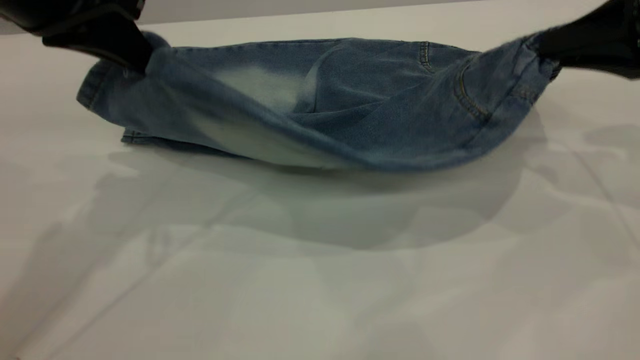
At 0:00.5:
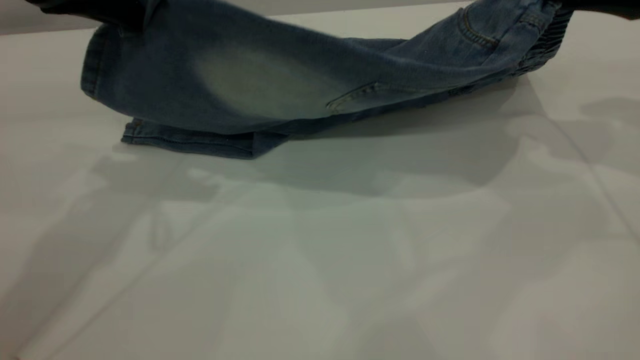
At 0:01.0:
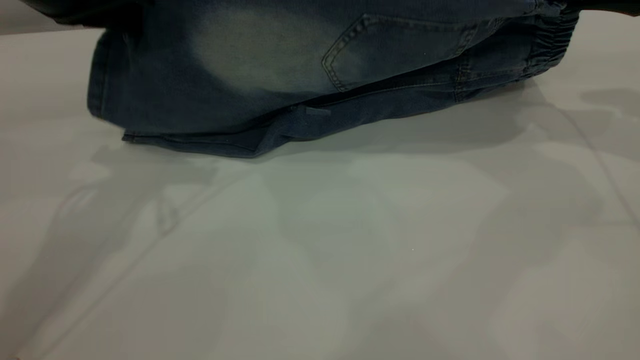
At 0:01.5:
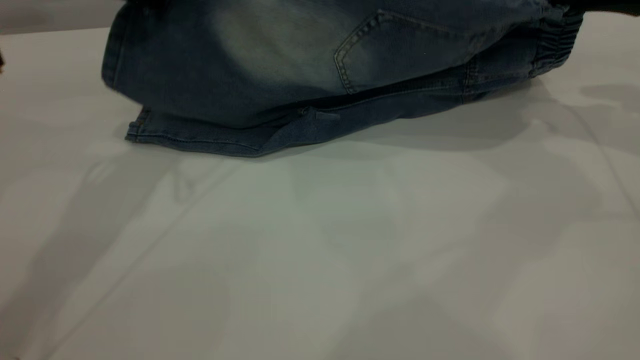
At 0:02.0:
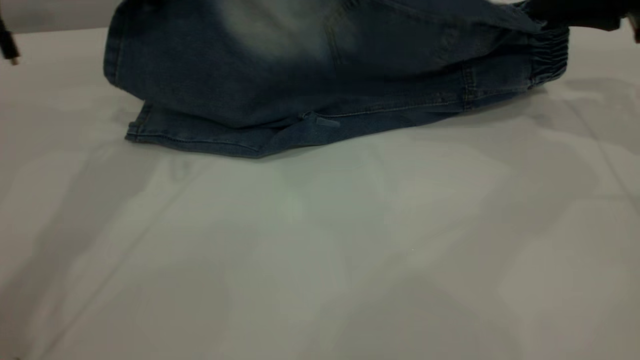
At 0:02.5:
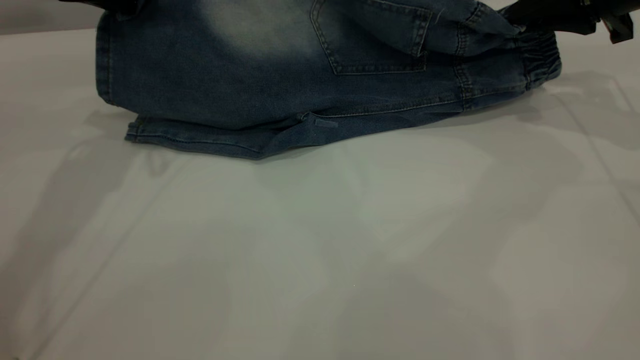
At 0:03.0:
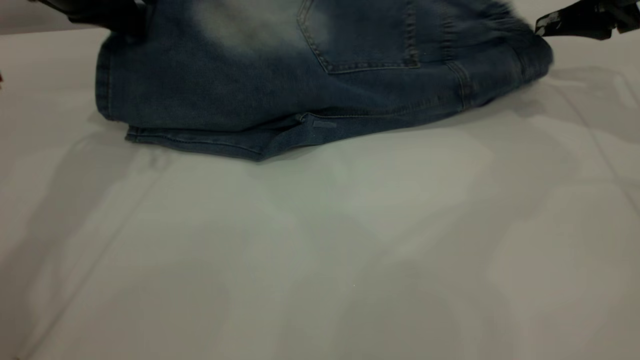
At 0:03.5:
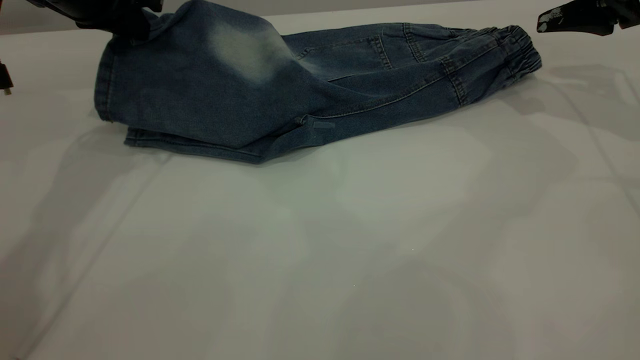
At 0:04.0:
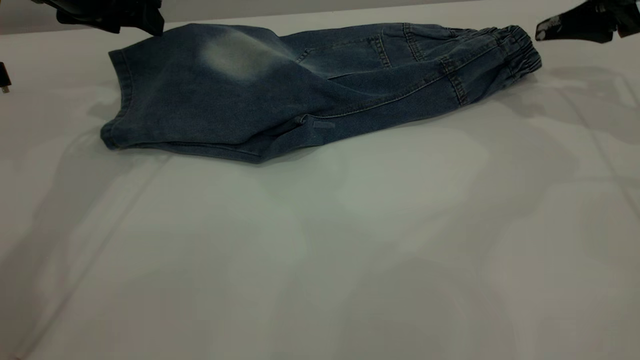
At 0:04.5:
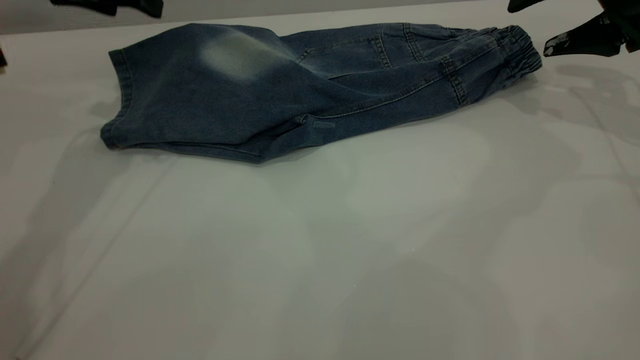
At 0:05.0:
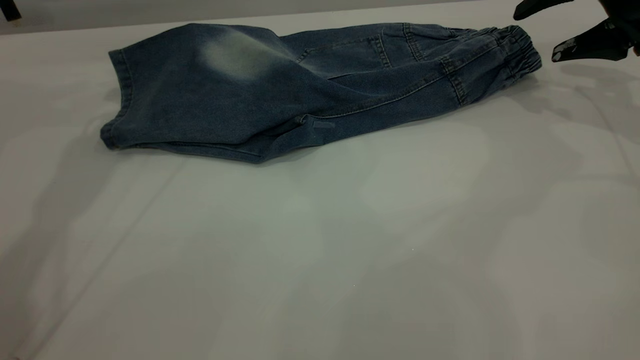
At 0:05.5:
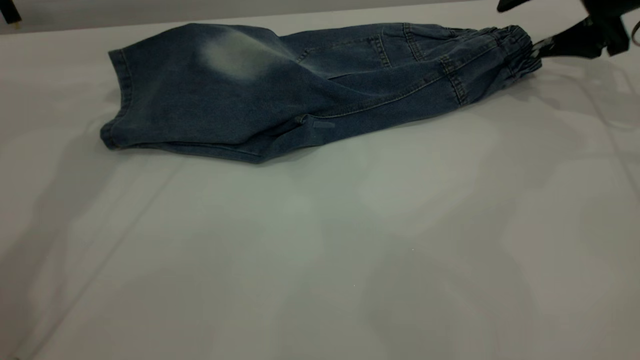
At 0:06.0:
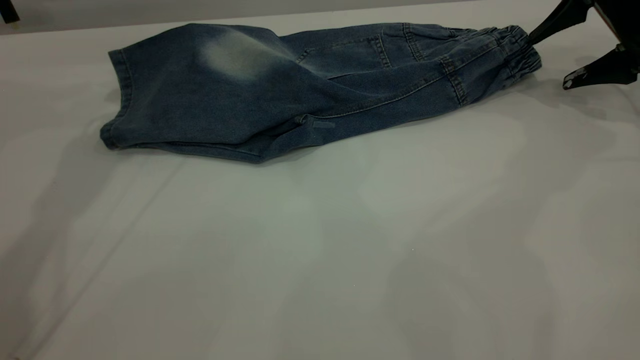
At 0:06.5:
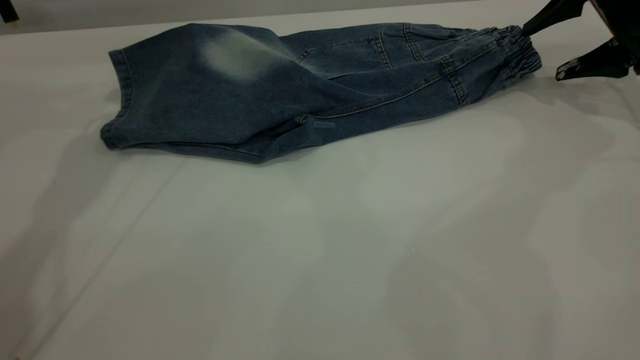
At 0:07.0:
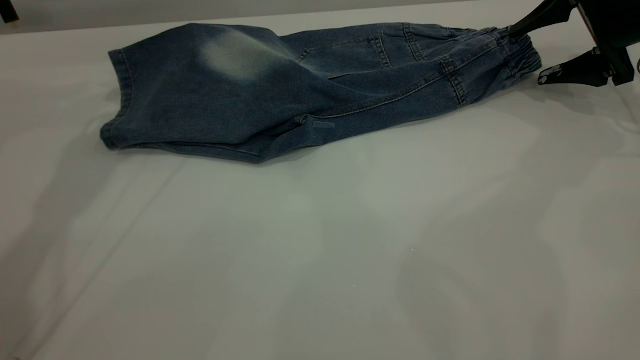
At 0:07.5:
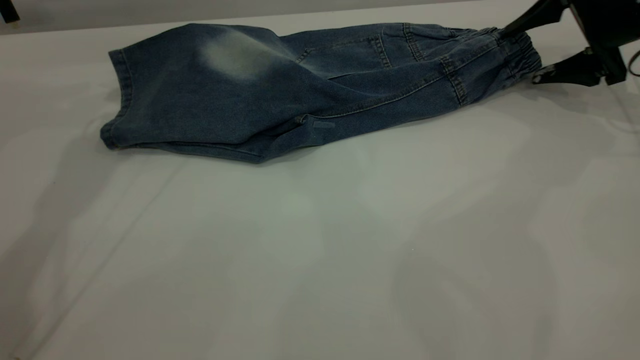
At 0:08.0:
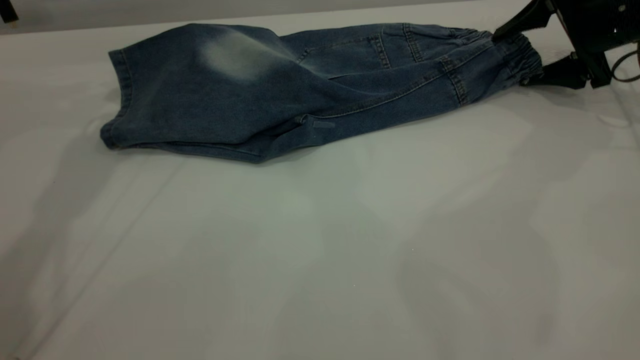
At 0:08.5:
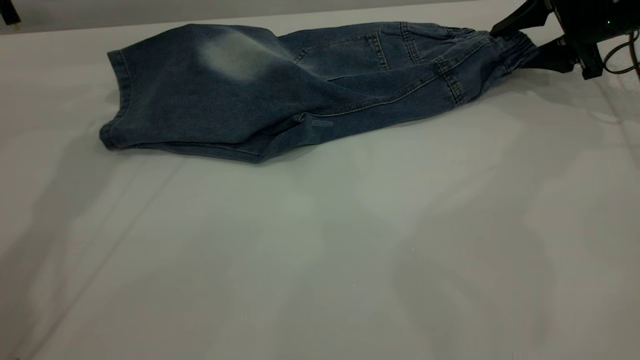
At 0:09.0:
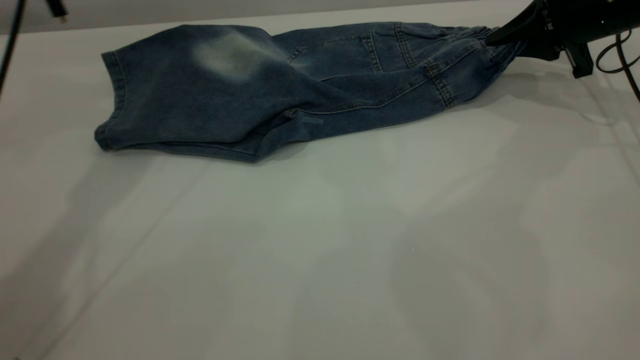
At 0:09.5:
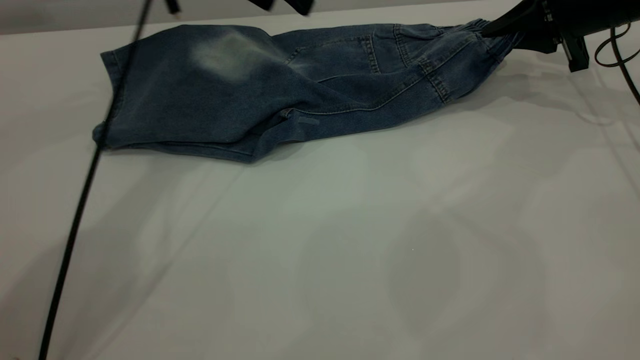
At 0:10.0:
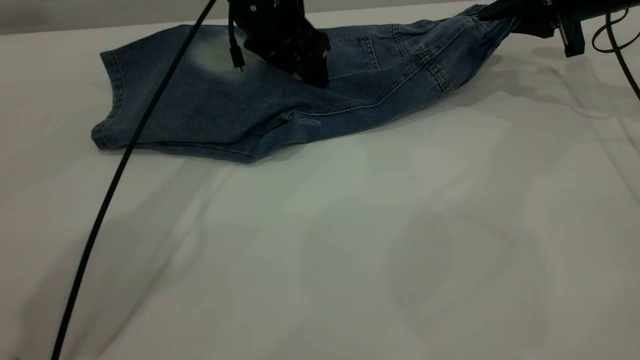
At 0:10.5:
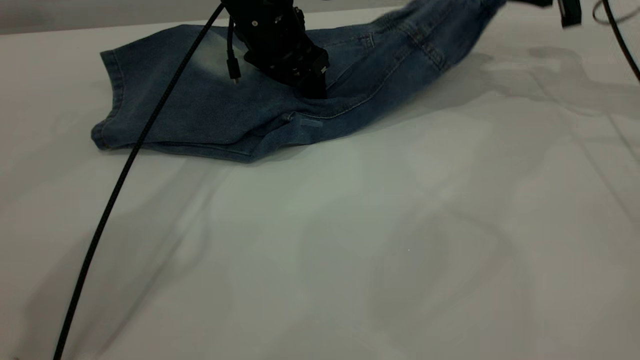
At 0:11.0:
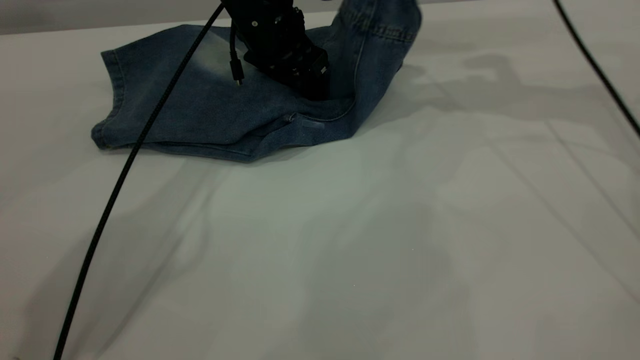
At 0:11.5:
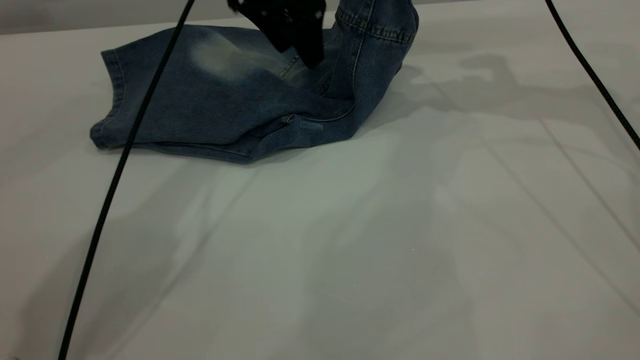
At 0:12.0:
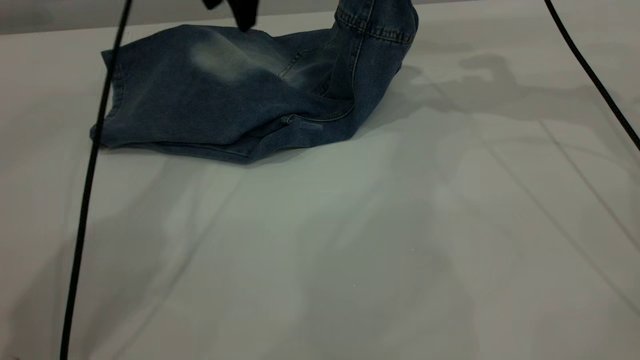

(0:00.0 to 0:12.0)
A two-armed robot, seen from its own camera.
Step, 0:00.0 - 0:05.5: Fold the bottom of the pants upward.
0:00.0 - 0:02.0: The grippers both shift forward by about 10 cm.
0:02.0 - 0:04.0: The right gripper opens up. The left gripper ends up some 5 cm from where it was, and opens up.
0:04.0 - 0:06.0: The left gripper shifts approximately 5 cm upward; the right gripper changes place by some 5 cm.
0:06.0 - 0:08.0: There are only small adjustments of the grippers.
0:08.0 - 0:10.0: The right gripper closes. Meanwhile the left gripper heads to the right and downward, covering approximately 20 cm.
0:10.0 - 0:12.0: The right gripper shifts roughly 10 cm to the left and upward; the left gripper is displaced upward by roughly 10 cm.

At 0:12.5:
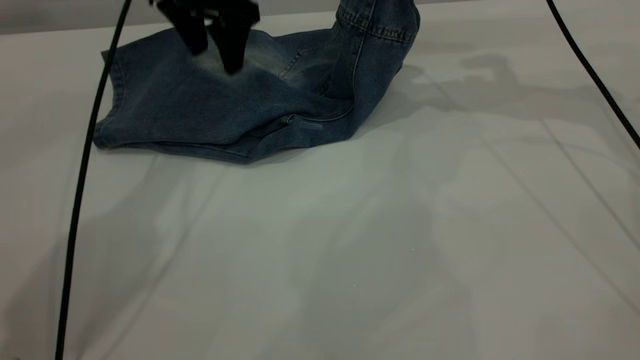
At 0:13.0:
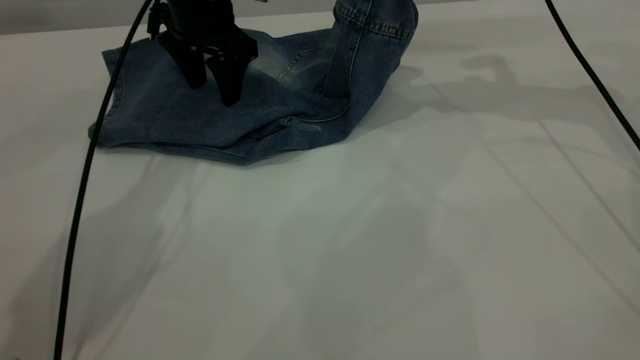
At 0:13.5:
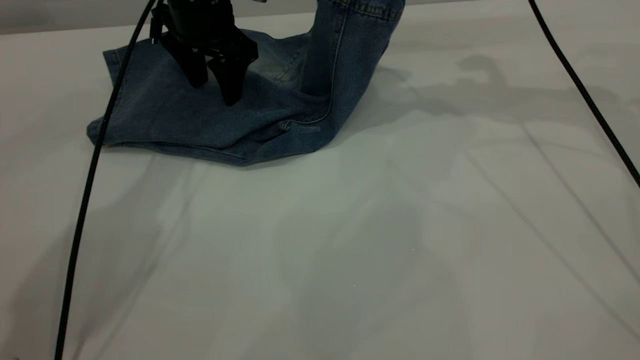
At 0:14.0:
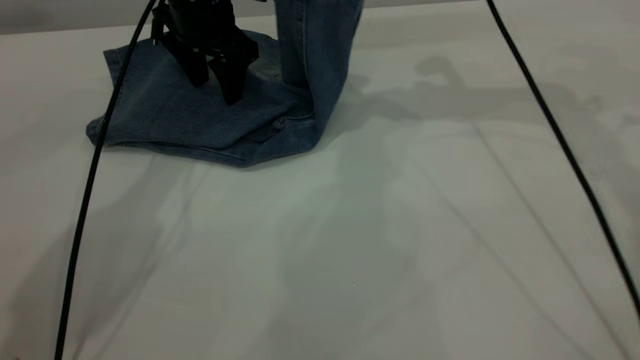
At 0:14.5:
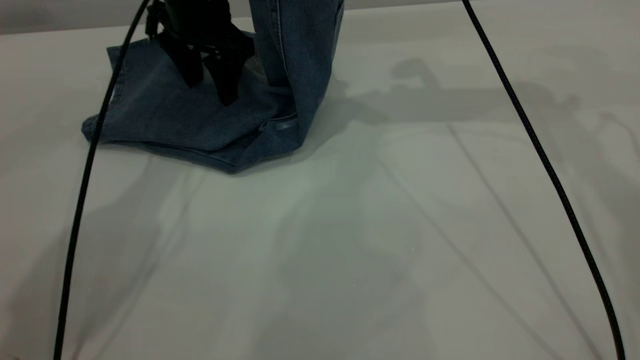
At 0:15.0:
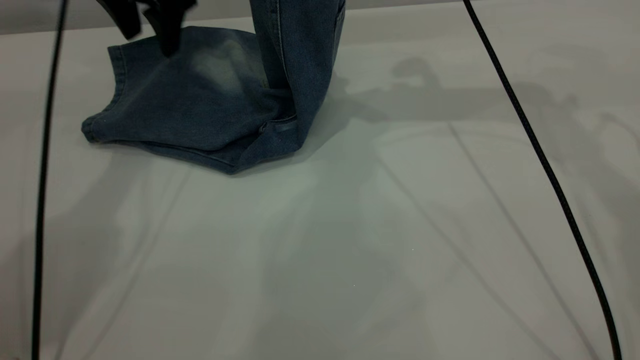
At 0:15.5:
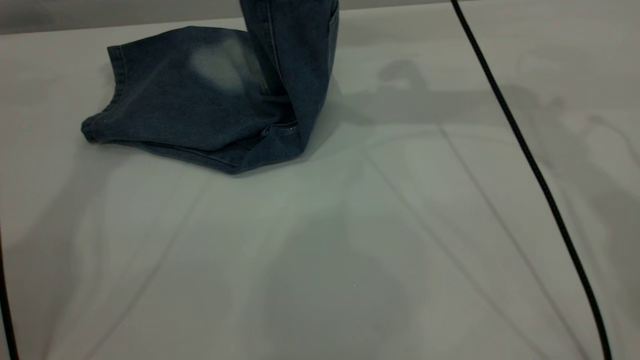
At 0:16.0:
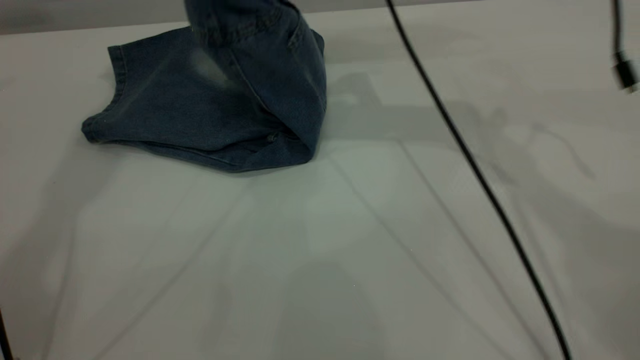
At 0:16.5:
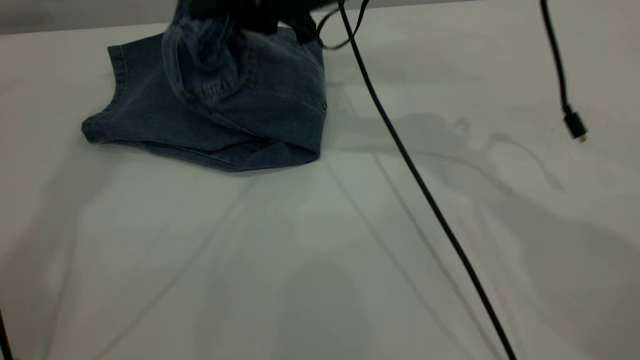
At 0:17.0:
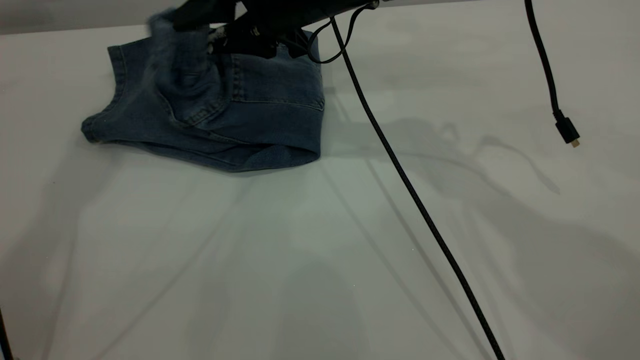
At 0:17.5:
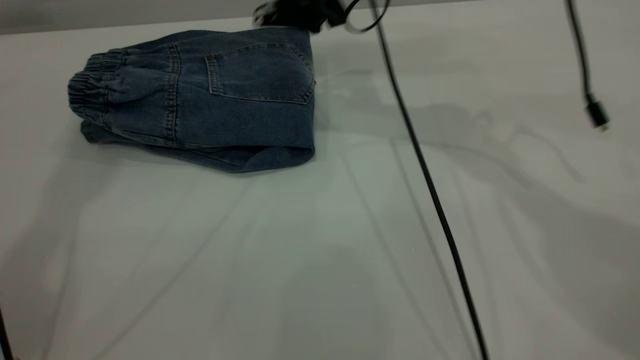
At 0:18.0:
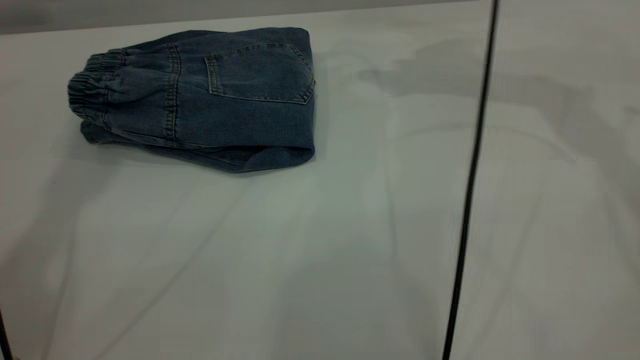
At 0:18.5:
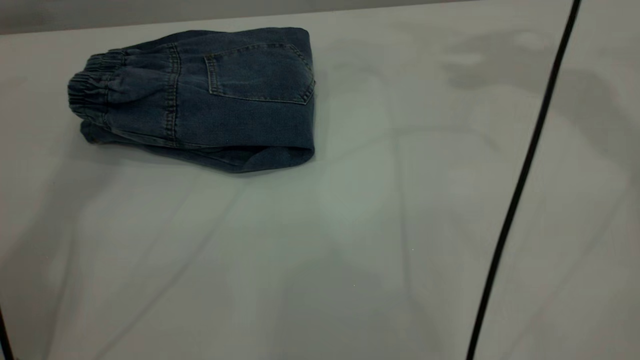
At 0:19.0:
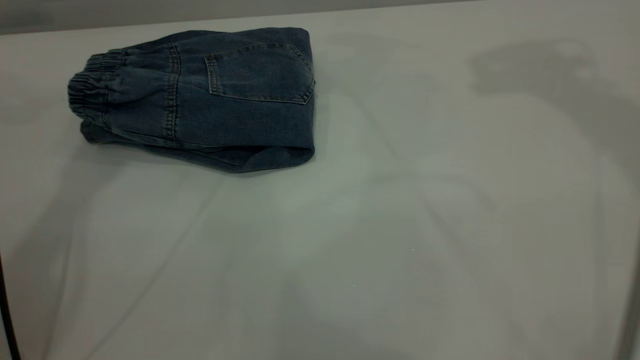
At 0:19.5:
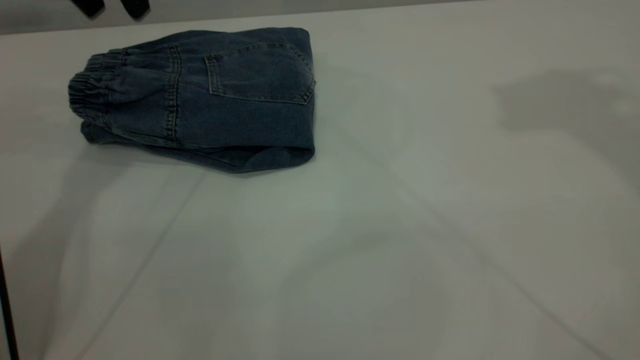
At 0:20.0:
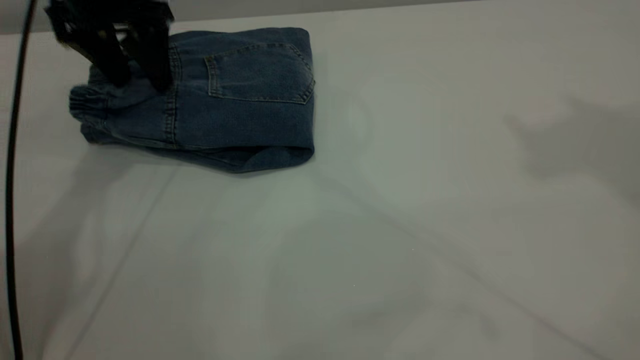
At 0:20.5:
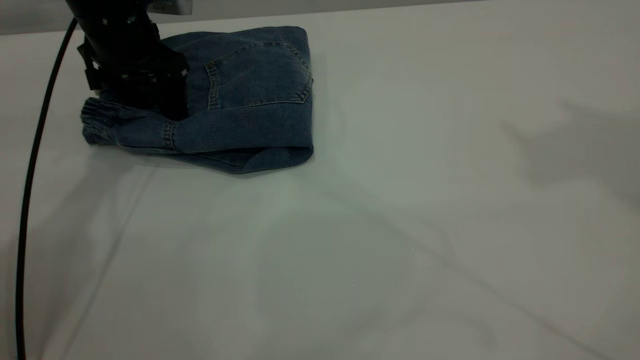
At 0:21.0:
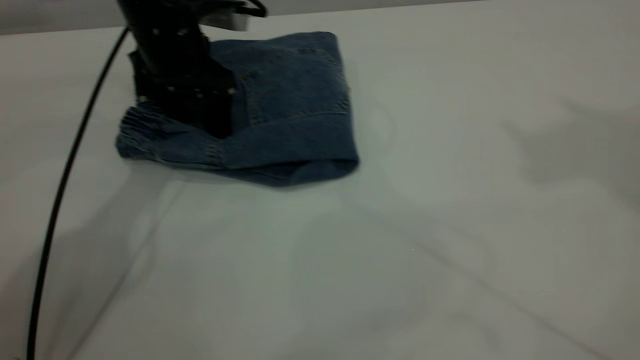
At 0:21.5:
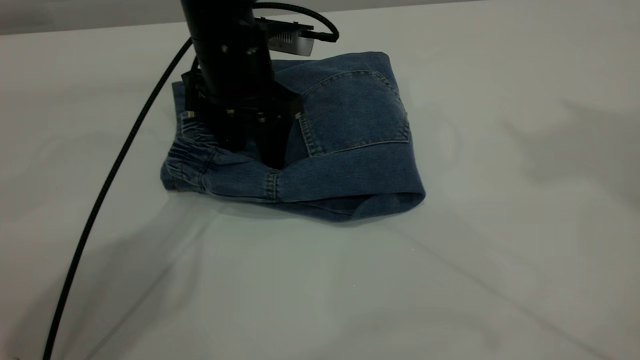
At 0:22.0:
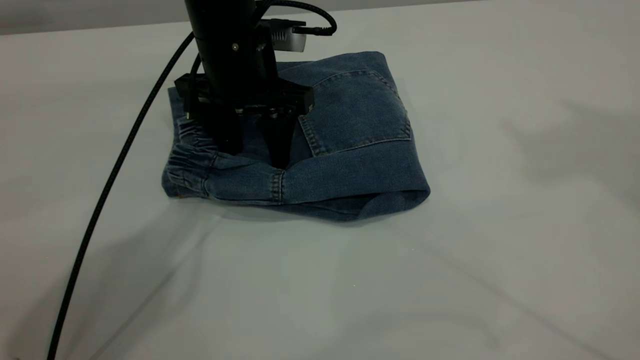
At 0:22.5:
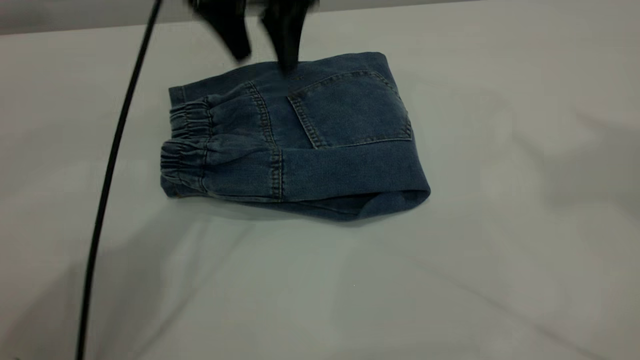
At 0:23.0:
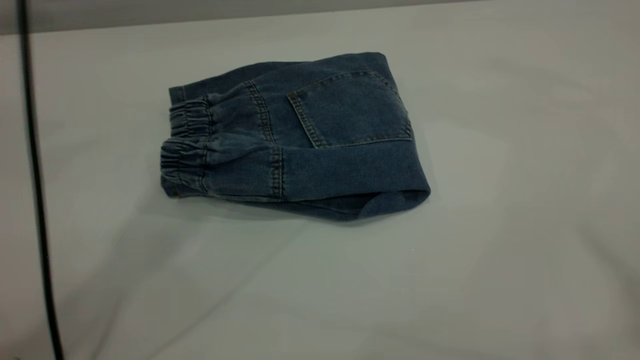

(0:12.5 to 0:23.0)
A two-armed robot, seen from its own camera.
Step, 0:12.5 - 0:18.5: Fold your pants from right to left.
0:12.5 - 0:14.5: The right gripper shifts about 10 cm to the left.
0:14.5 - 0:16.5: The right gripper travels to the left and downward by about 15 cm. Meanwhile the left gripper goes roughly 30 cm upward.
0:16.5 - 0:19.0: The left gripper travels downward by approximately 10 cm, while the right gripper travels upward and to the right by some 35 cm, and opens.
0:19.0 - 0:21.0: The right gripper is displaced backward and upward by approximately 15 cm. Meanwhile the left gripper heads downward, covering approximately 20 cm.
0:21.0 - 0:23.0: The right gripper heads backward, covering approximately 15 cm, while the left gripper shifts roughly 30 cm upward.
